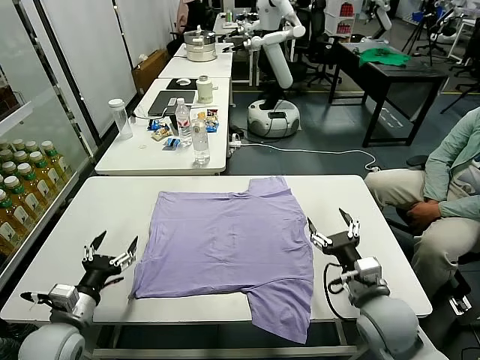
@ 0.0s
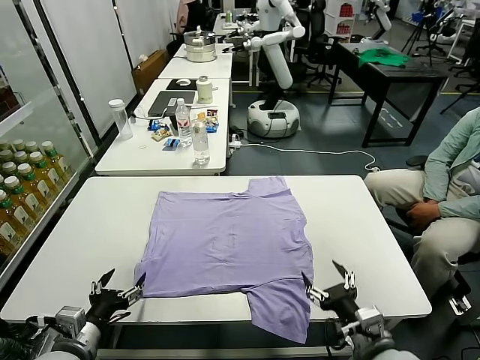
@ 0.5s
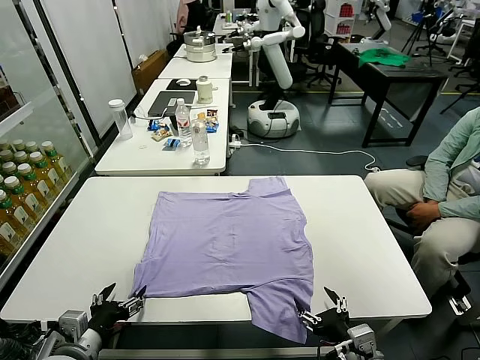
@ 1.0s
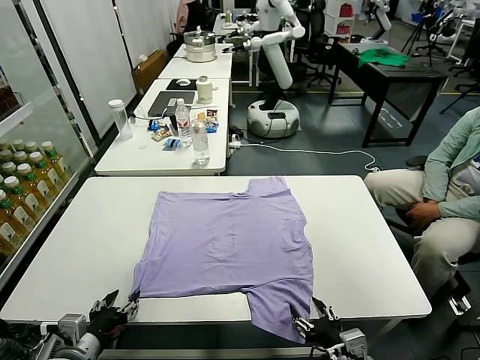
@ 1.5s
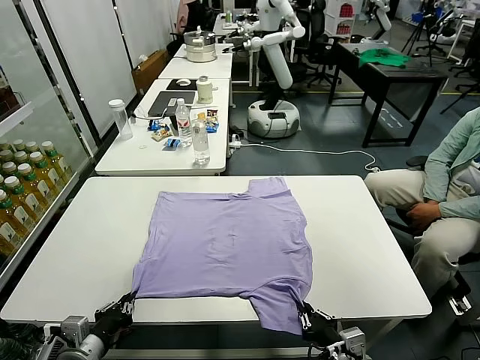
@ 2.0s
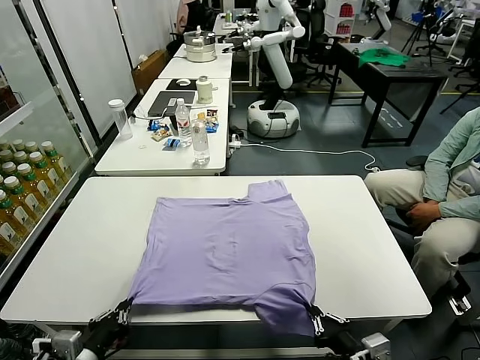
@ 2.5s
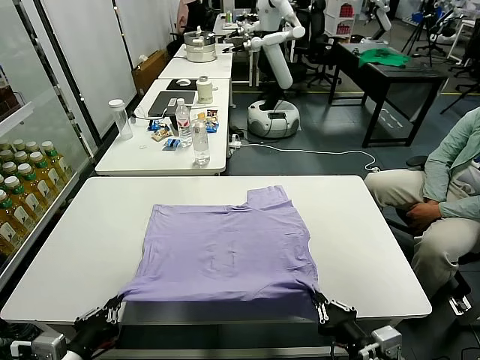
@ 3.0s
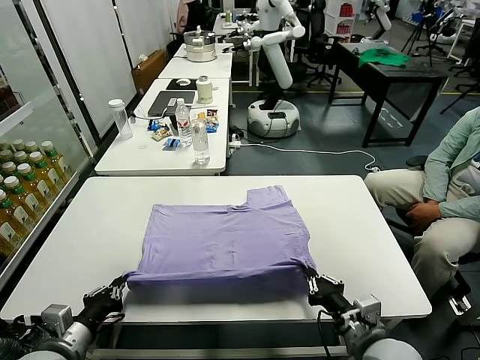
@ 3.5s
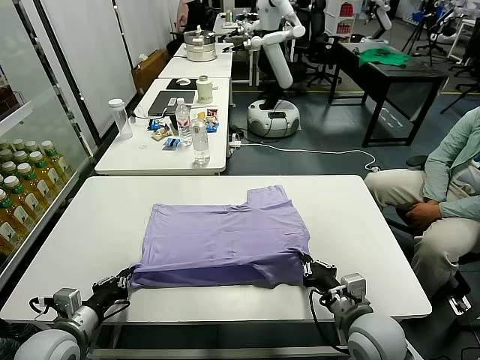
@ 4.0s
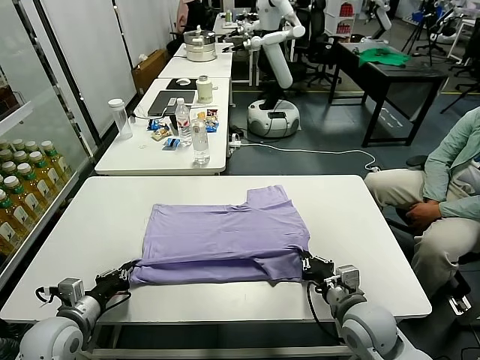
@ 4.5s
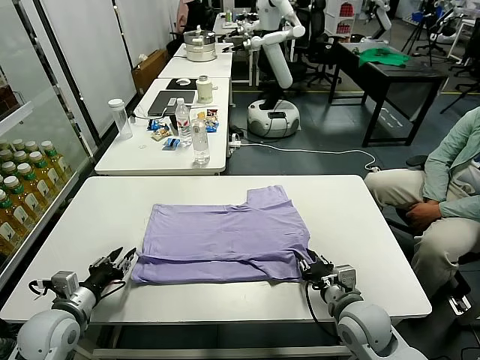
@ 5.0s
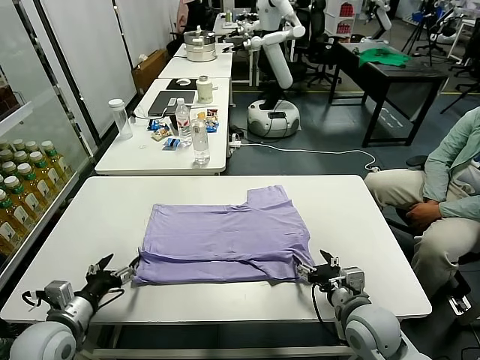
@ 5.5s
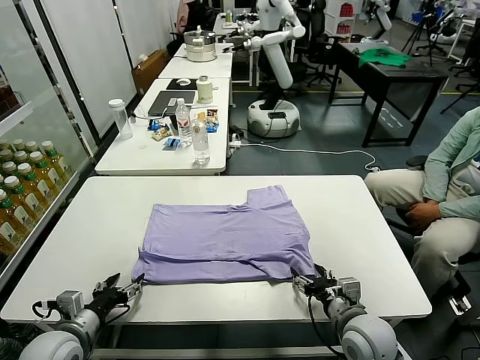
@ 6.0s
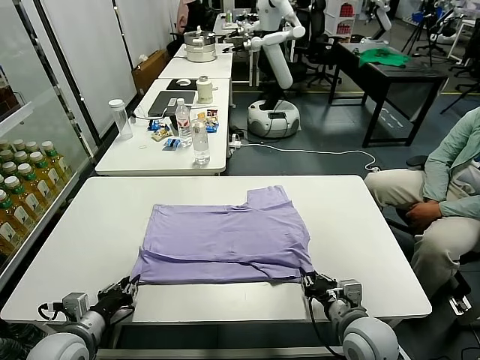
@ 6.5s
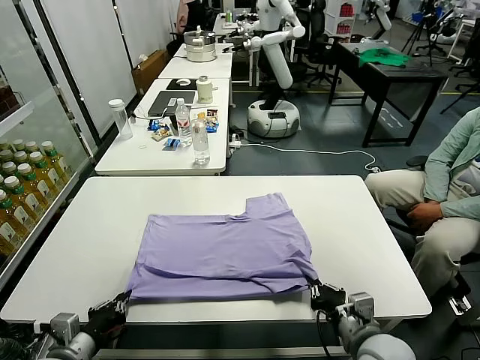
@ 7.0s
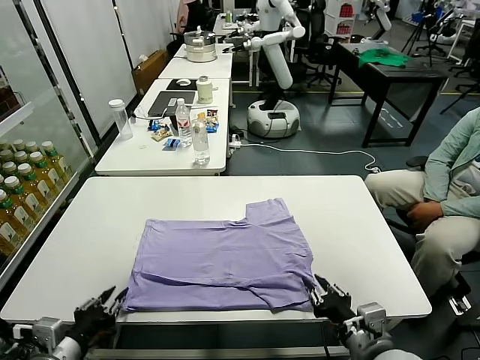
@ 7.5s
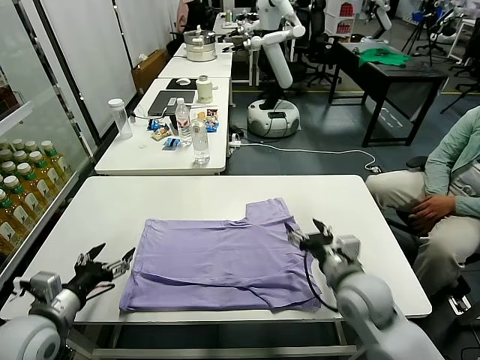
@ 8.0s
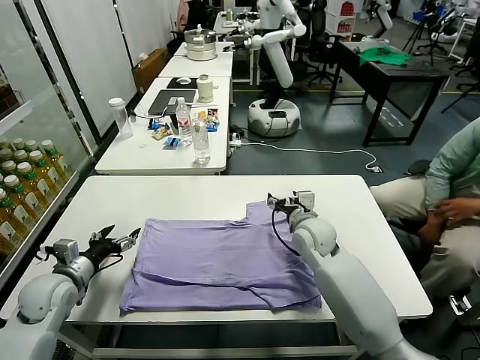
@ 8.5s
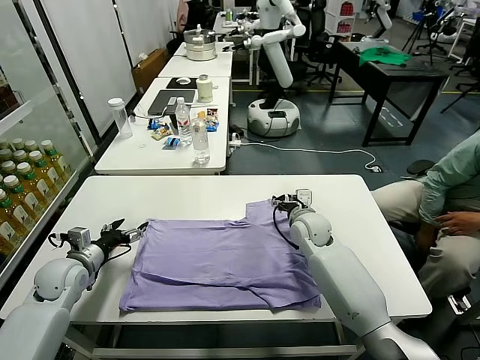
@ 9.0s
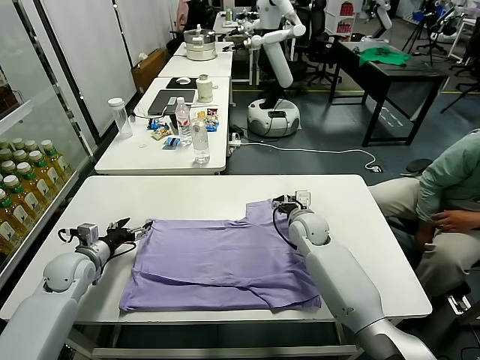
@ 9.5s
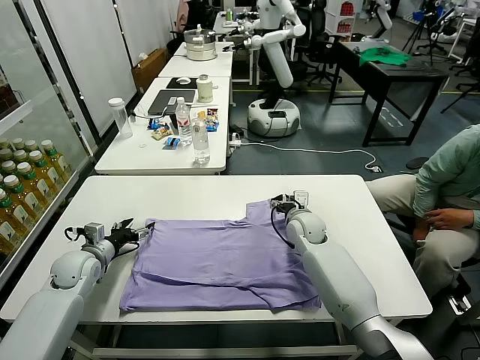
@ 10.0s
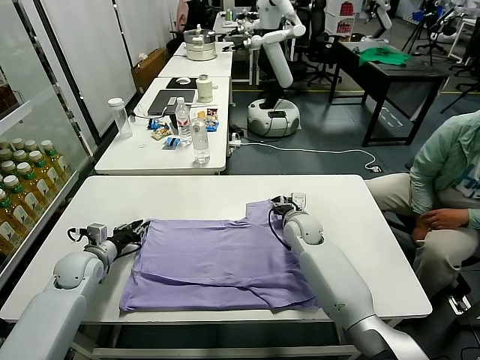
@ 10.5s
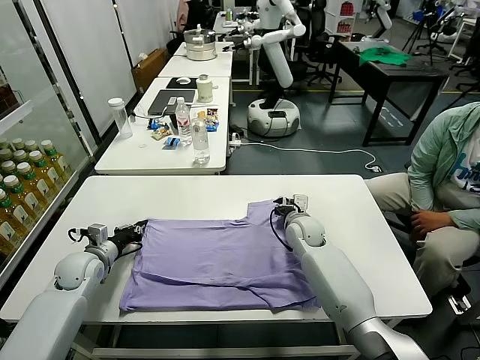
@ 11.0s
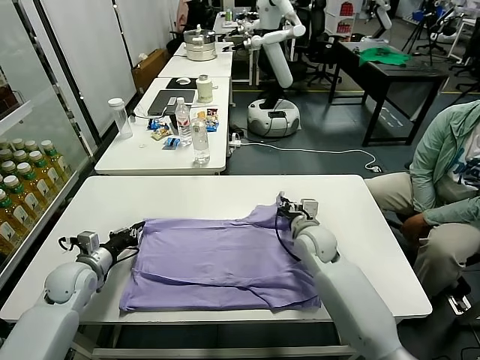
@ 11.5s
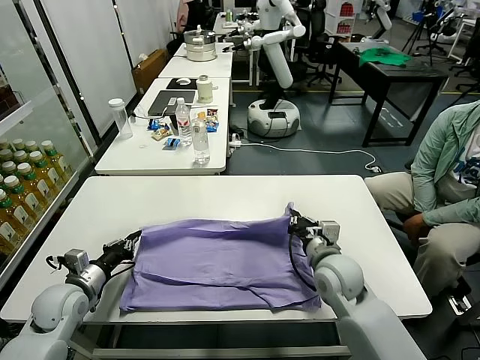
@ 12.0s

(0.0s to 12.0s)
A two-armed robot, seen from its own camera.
Task of the whole recording: fold and organize the clothes.
Step, 0.0s - 2.0s: use both grippers simultaneously to clamp the lower edge of the clothing fabric.
Step, 2.5s - 5.0s: use both grippers to drag the lower edge of the fabric forward and fold it over the upper edge.
Step, 5.5s - 7.5s: Drag the clothes downward with both gripper.
Step, 8.0s - 11.0s: use both grippers simultaneously to clamp the upper edge of the clothing fabric.
2.0s - 4.0s: The left gripper ends up some 5 cm from where it was, while the right gripper heads forward, covering roughly 10 cm.
4.0s - 6.0s: The left gripper opens up. The right gripper opens.
6.0s - 8.0s: The left gripper shifts approximately 5 cm upward, travels backward and back again, roughly 5 cm each way, and closes and opens again; the right gripper heads forward and upward, covering roughly 10 cm, and closes and opens again.
8.0s - 10.0s: The right gripper moves forward, approximately 20 cm. The left gripper travels forward and downward by about 20 cm.
10.0s - 12.0s: The right gripper goes approximately 15 cm backward, and closes up. The left gripper moves backward, roughly 10 cm, and closes up.

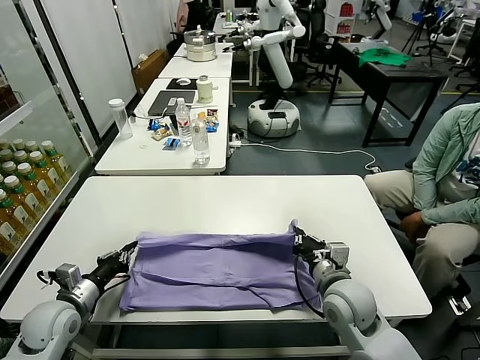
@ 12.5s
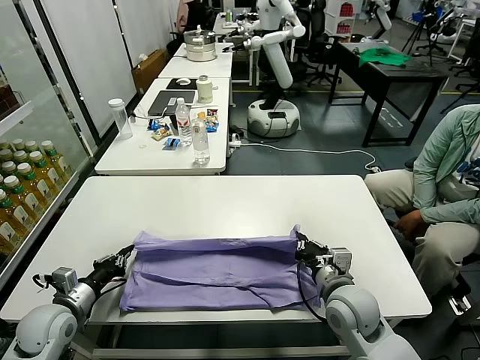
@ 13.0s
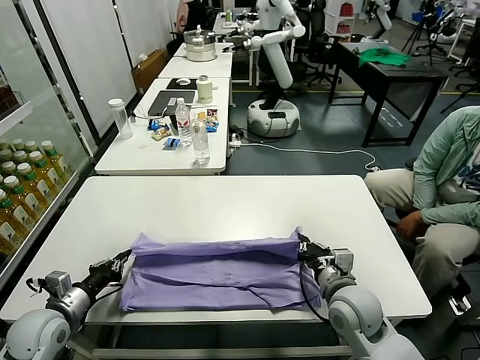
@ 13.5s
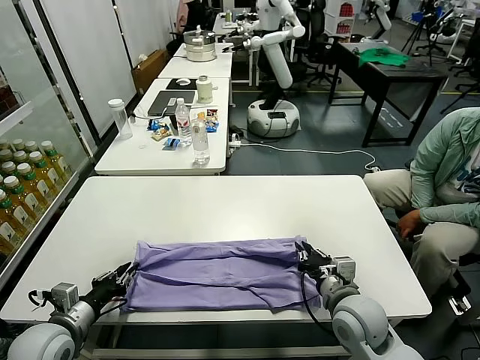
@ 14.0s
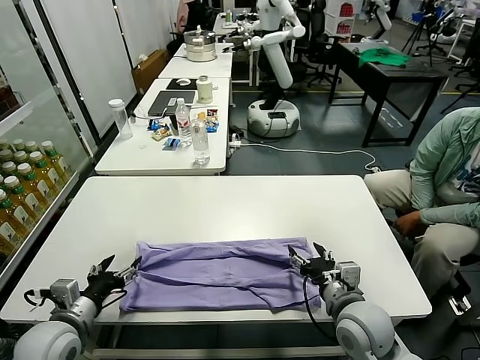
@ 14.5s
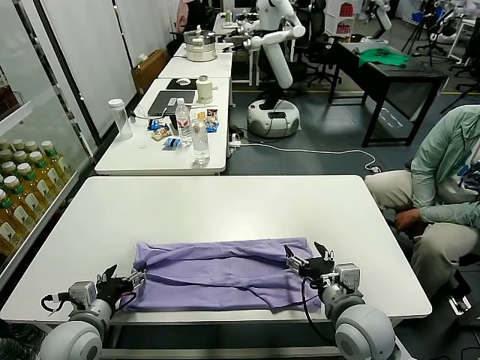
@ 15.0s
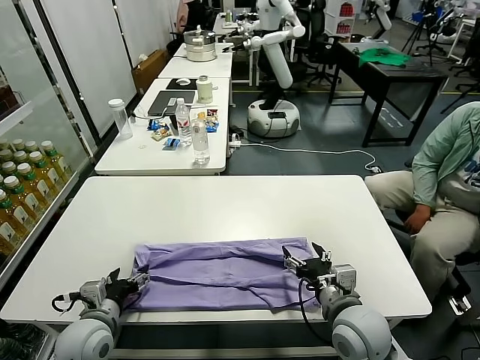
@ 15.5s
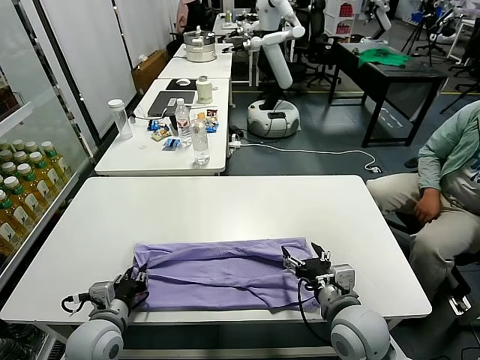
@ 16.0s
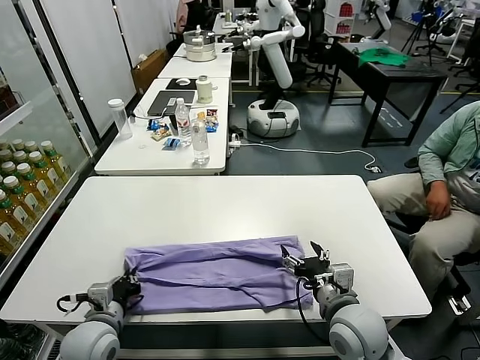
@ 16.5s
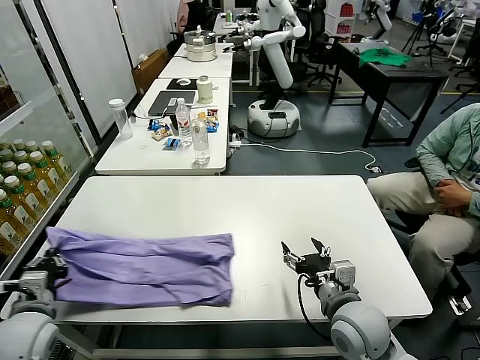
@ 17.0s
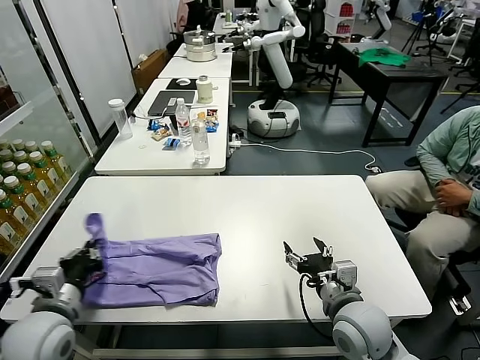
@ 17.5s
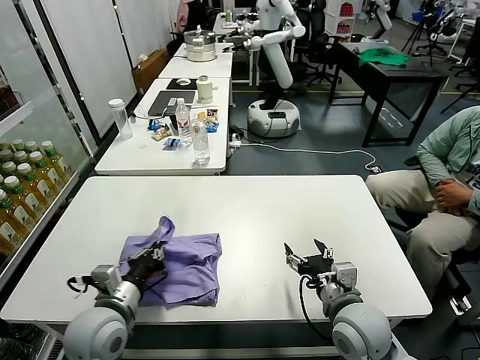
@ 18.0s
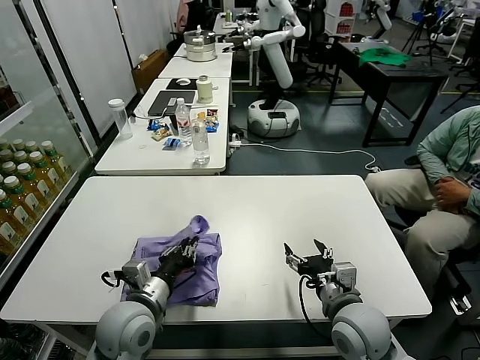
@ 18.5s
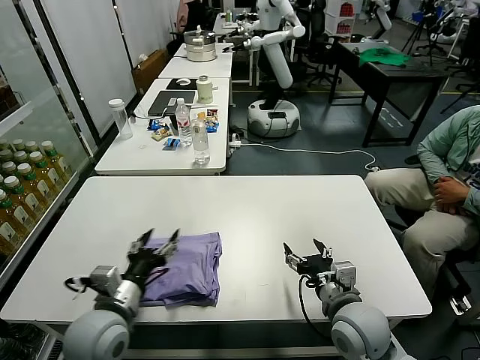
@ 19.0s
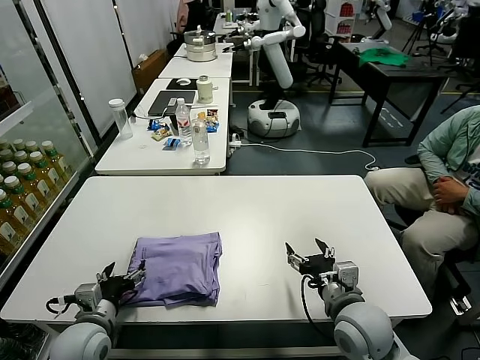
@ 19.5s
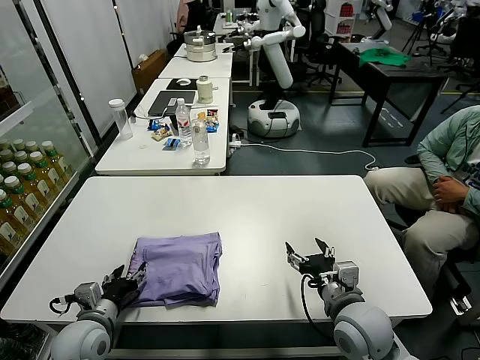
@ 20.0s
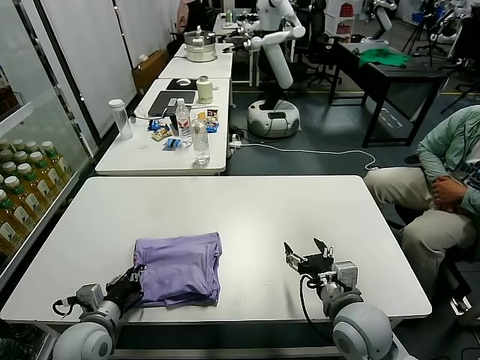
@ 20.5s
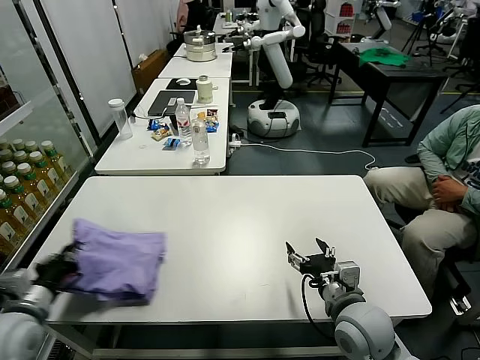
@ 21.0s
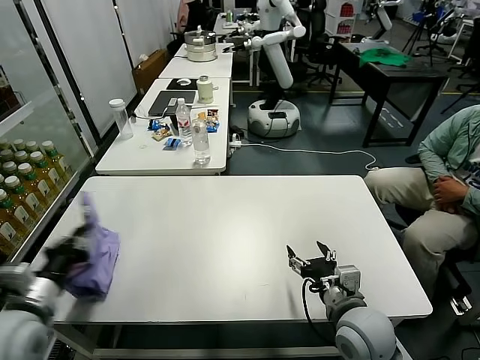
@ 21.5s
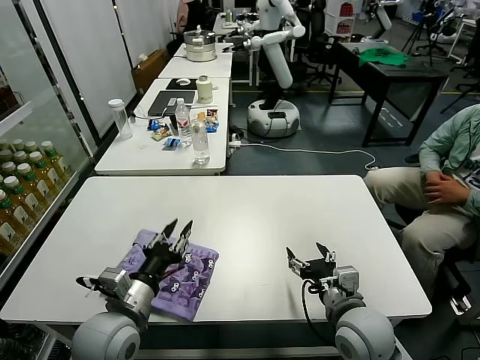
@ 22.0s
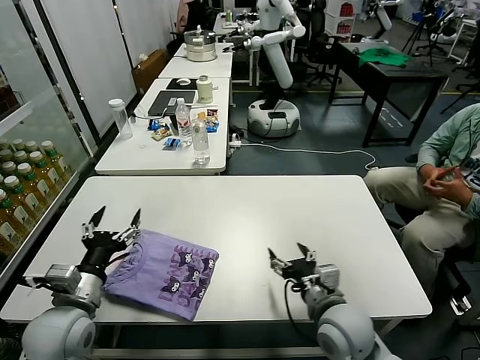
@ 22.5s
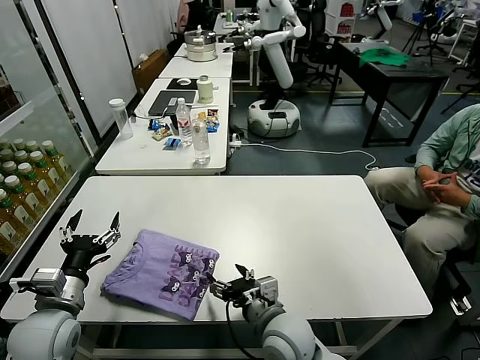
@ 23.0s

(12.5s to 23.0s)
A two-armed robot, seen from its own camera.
Task of the whole recording: fold and organize the clothes.
Step, 14.5s - 16.5s: use the left gripper to clamp the left edge of the fabric.
Step, 17.0s - 18.5s: use the left gripper to drag the left edge of the fabric to the left and folds it over the right edge.
Step, 19.0s - 22.0s: Flip the folded clothes over with left gripper.
12.5s - 14.5s: The left gripper travels backward by about 5 cm, and opens up. Meanwhile the right gripper opens.
14.5s - 16.5s: The left gripper travels to the right by some 5 cm, and closes.
16.5s - 19.0s: The left gripper moves upward, roughly 5 cm, moves approximately 10 cm to the left and comes back, and opens.
19.0s - 21.0s: The left gripper is displaced to the left by about 15 cm, and closes its fingers.
21.0s - 23.0s: The left gripper travels to the right and back again, about 15 cm each way, and opens its fingers. Meanwhile the right gripper heads to the left, covering about 15 cm.

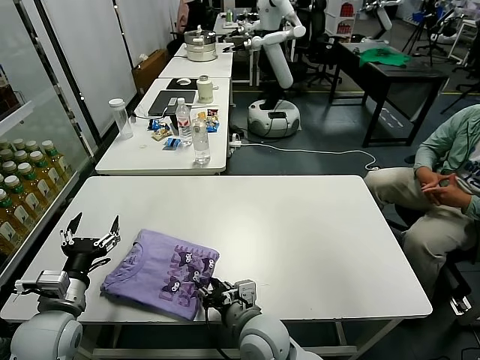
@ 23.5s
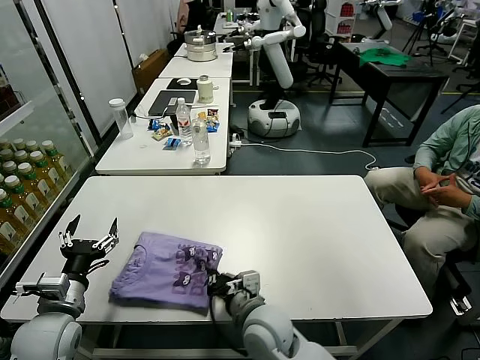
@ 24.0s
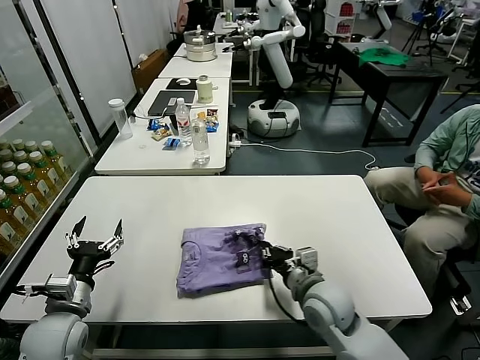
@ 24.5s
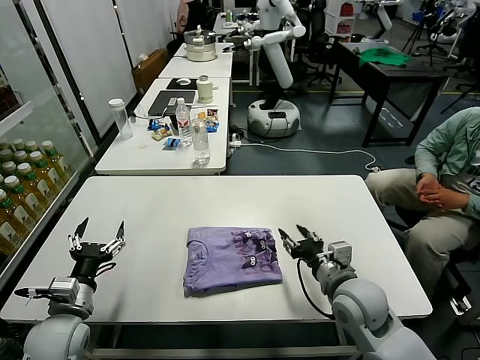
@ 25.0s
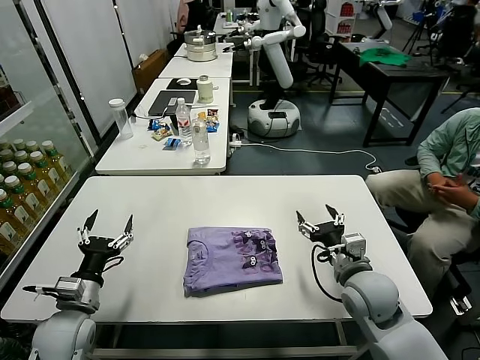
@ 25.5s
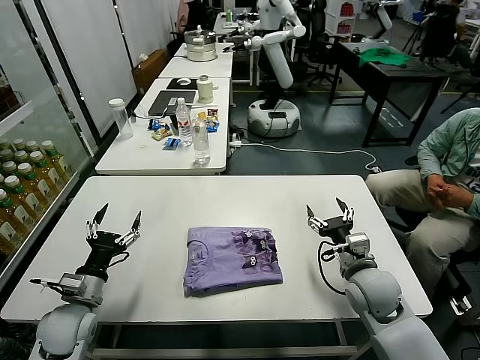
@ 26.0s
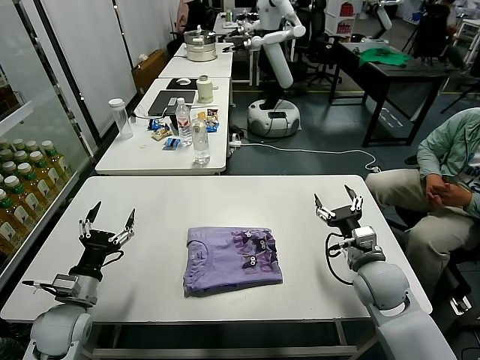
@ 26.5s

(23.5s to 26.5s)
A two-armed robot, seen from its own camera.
Task of the whole recording: fold and organize the clothes.
23.5s - 25.0s: The right gripper shifts approximately 20 cm to the right, and closes, then opens again.
25.0s - 26.5s: The right gripper travels to the right by about 5 cm, and opens up.
